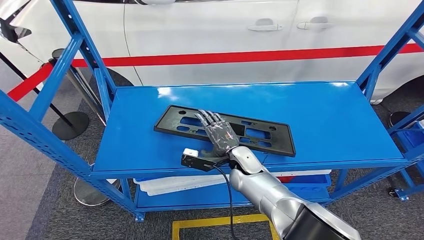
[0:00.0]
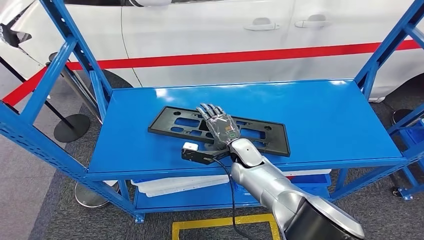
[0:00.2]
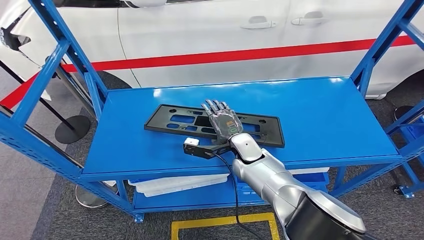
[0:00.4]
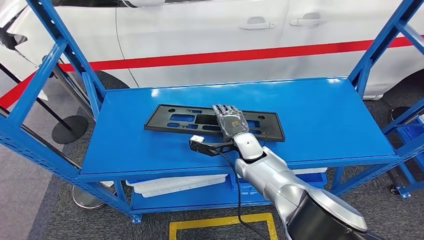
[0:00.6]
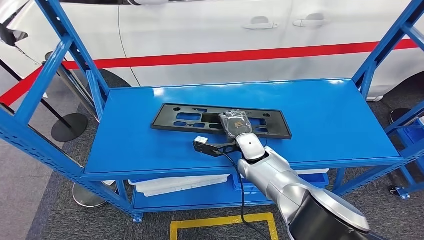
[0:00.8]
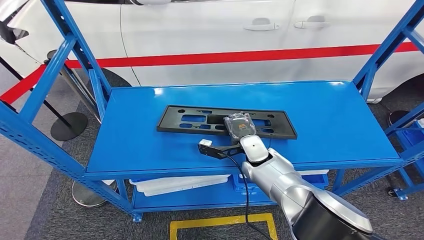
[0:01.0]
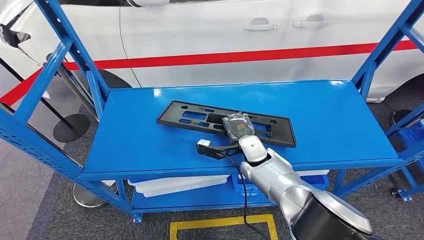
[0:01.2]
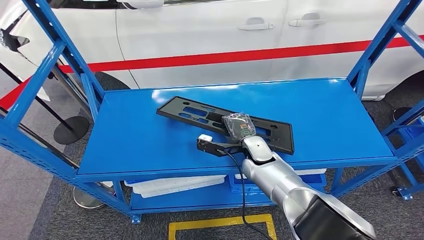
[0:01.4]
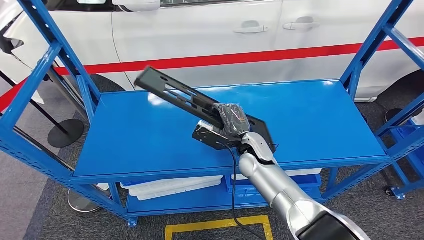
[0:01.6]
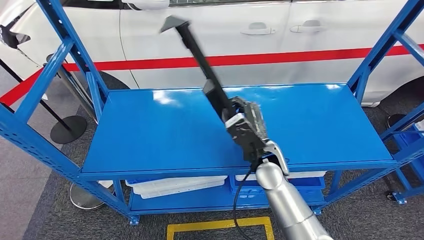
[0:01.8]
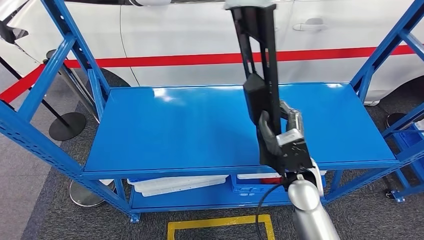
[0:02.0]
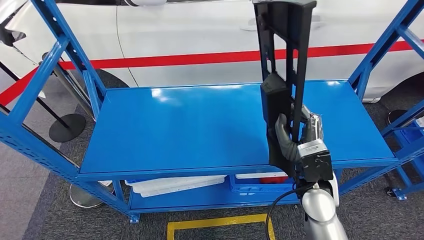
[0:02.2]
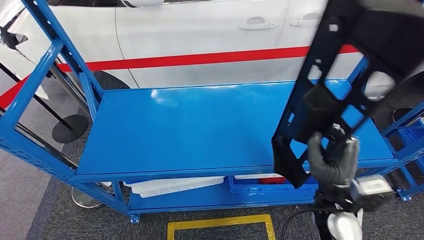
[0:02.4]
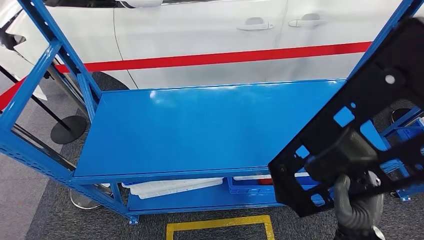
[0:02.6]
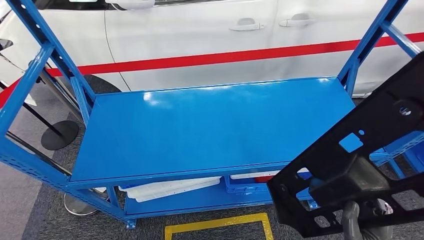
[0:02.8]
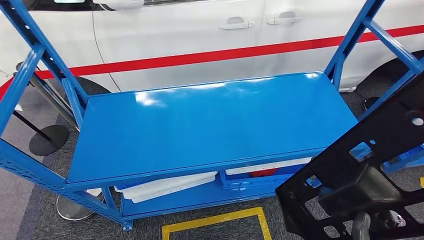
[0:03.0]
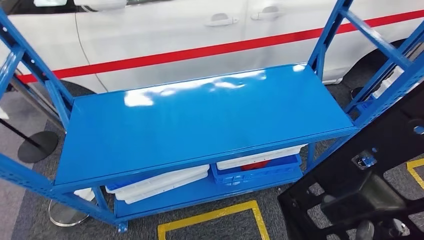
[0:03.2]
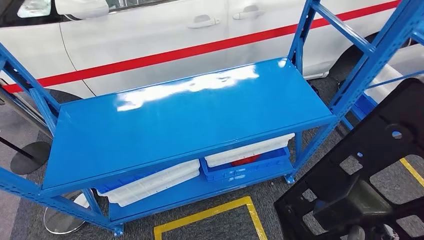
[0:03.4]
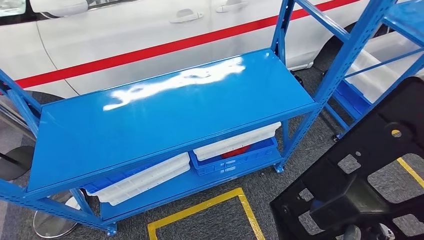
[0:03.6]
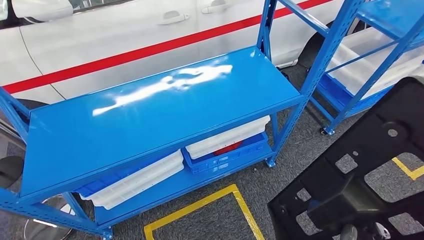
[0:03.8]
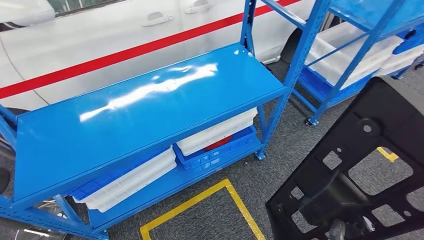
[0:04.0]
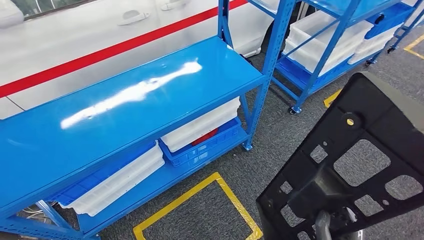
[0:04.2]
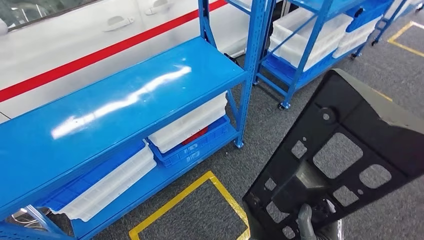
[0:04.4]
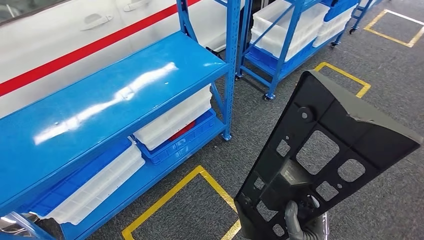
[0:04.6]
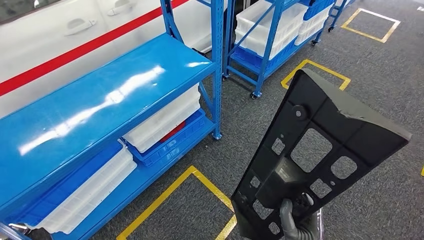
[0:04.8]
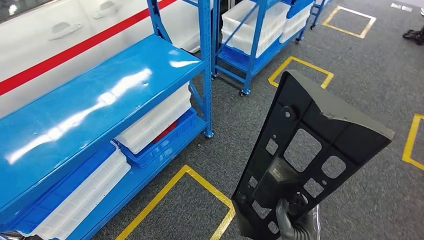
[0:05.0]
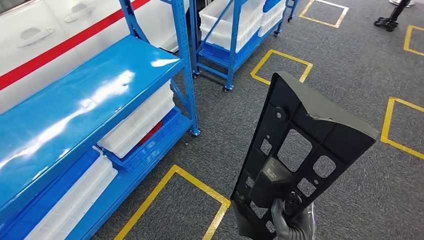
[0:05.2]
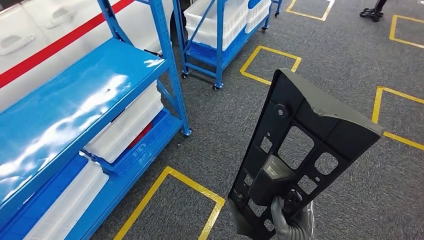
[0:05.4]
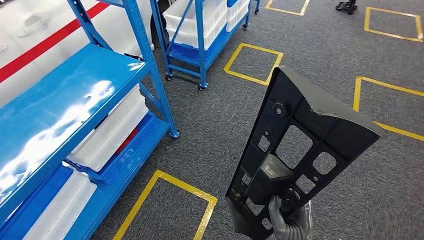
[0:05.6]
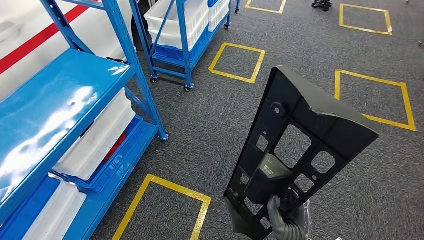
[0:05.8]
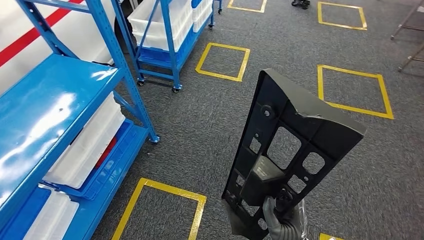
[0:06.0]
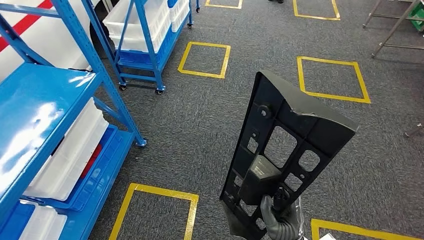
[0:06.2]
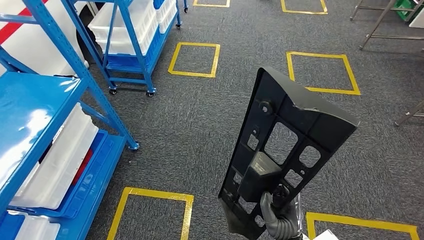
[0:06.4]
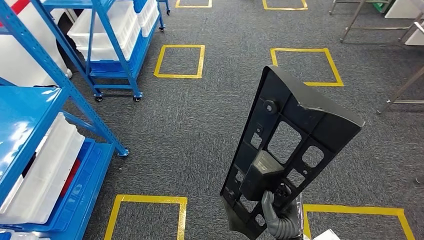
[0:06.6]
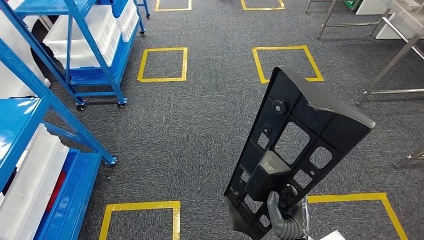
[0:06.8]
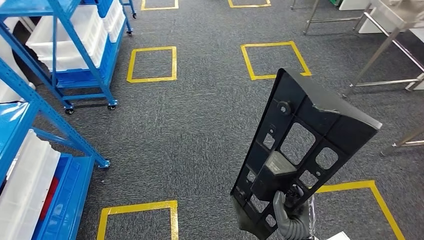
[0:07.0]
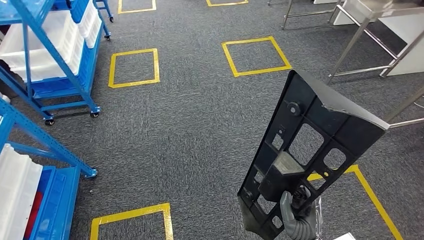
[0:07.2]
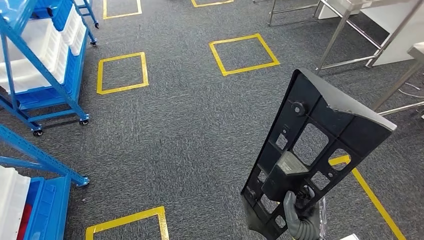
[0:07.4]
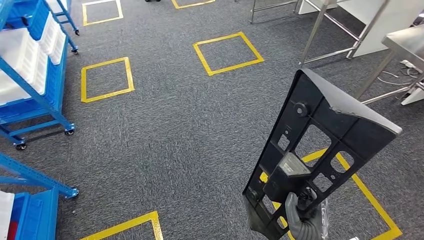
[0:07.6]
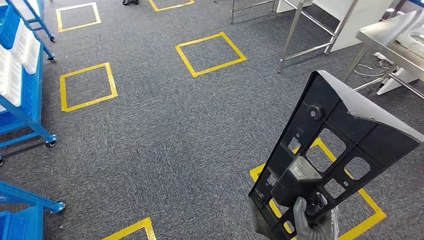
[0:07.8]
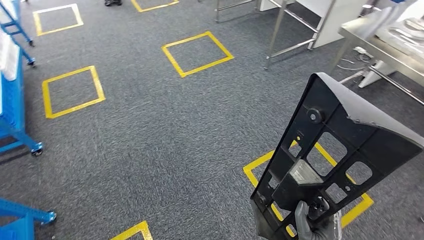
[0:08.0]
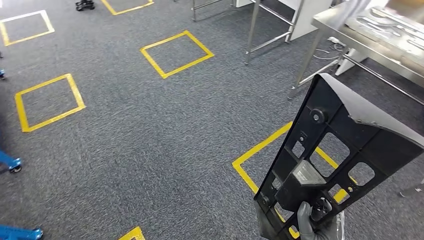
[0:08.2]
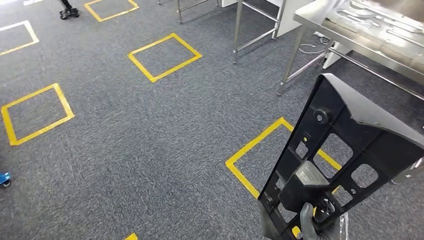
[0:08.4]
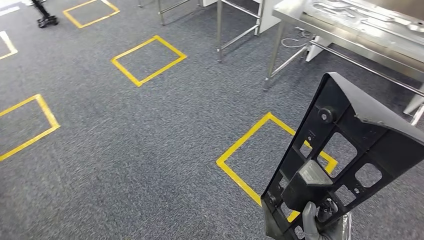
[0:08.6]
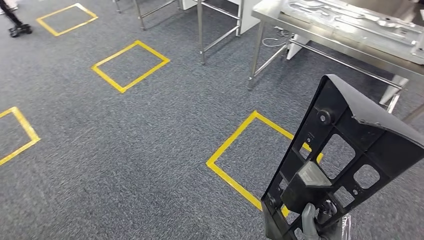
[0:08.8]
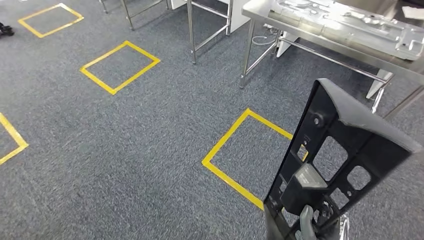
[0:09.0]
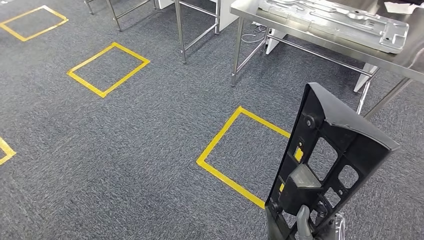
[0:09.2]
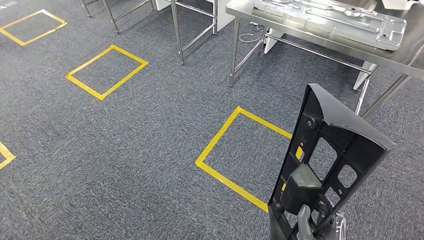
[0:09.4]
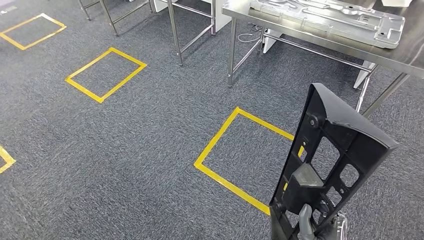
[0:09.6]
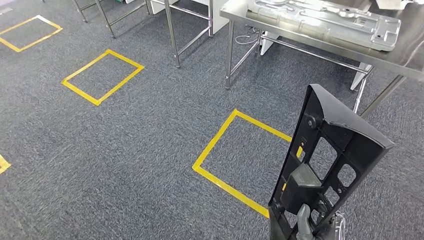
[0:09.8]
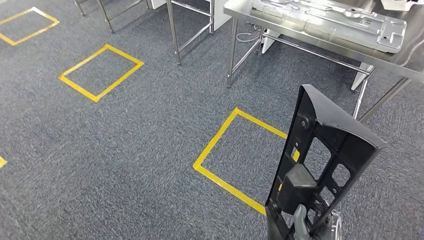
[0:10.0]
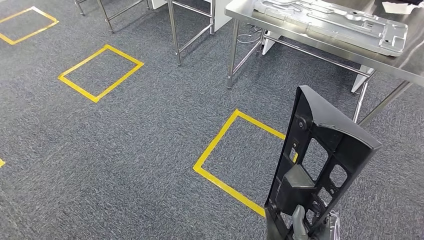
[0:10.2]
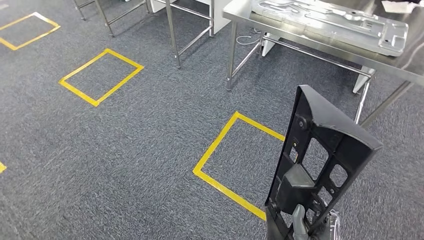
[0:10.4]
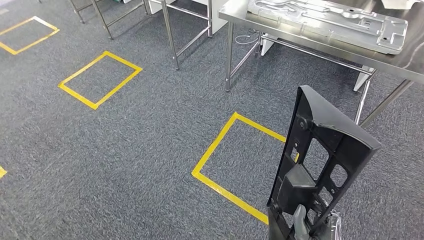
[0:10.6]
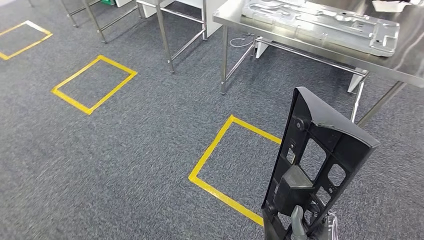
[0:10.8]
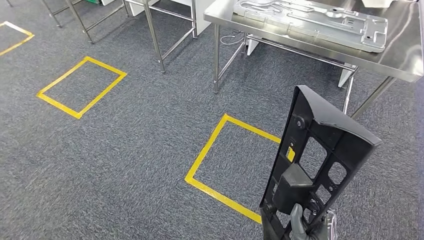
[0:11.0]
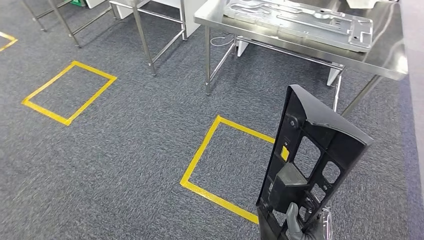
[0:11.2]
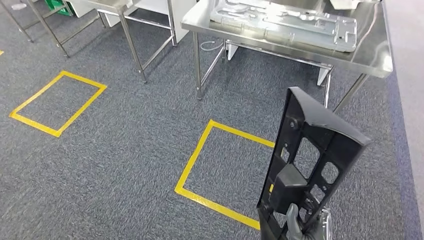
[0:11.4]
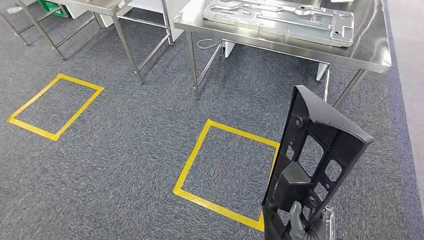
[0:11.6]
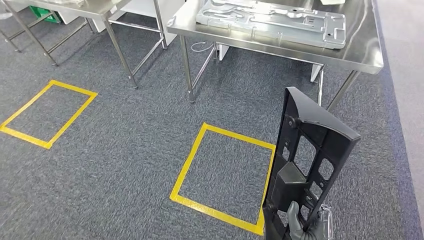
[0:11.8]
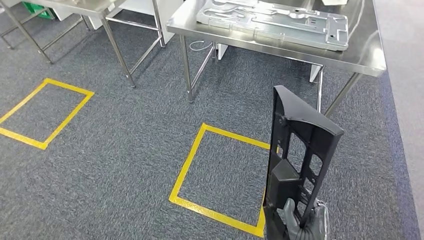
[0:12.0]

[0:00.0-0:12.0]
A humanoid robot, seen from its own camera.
Step, 0:00.0 to 0:02.8: Pick up the large material from the shelf.

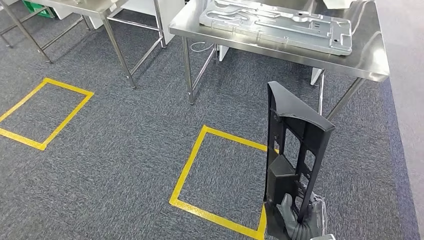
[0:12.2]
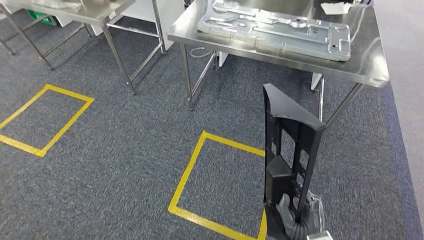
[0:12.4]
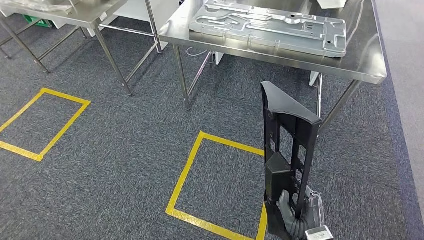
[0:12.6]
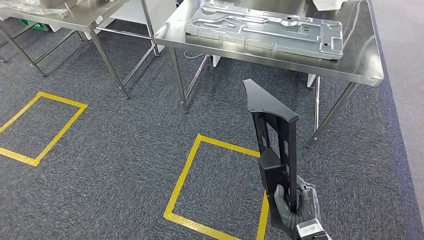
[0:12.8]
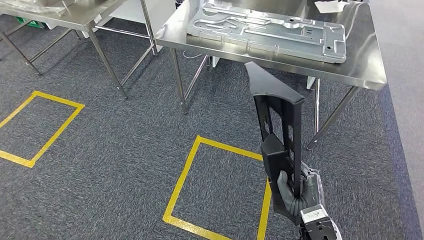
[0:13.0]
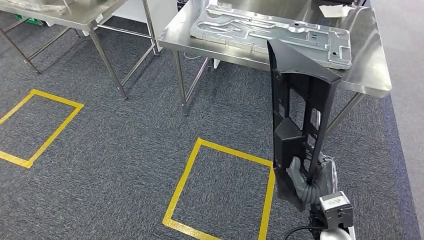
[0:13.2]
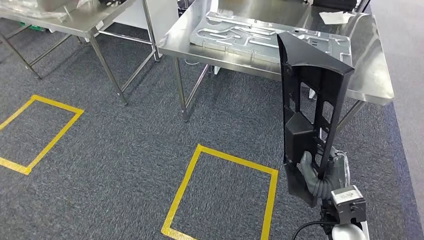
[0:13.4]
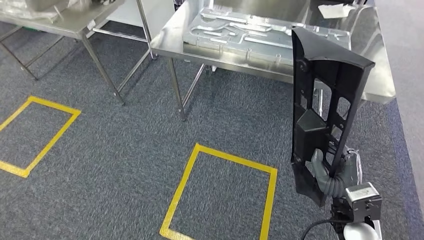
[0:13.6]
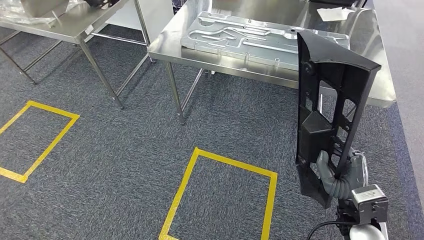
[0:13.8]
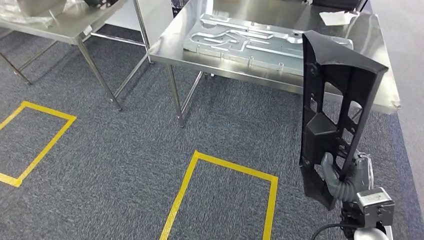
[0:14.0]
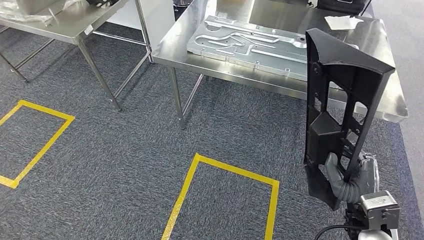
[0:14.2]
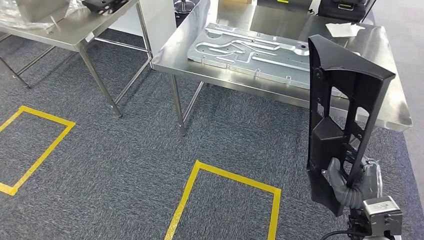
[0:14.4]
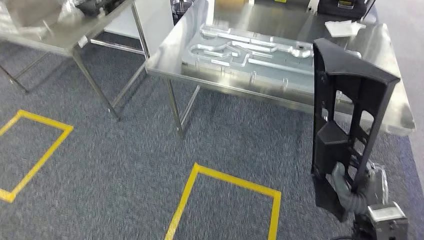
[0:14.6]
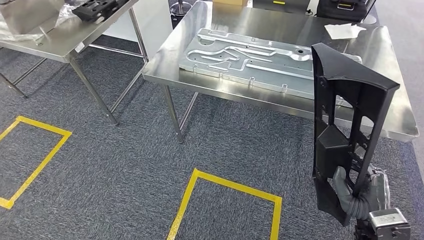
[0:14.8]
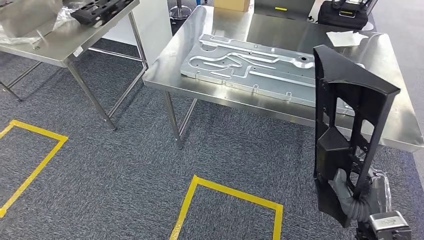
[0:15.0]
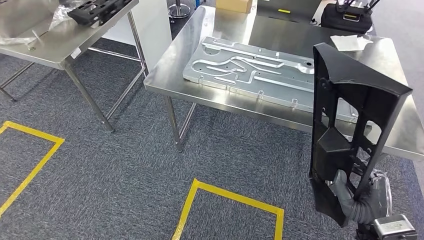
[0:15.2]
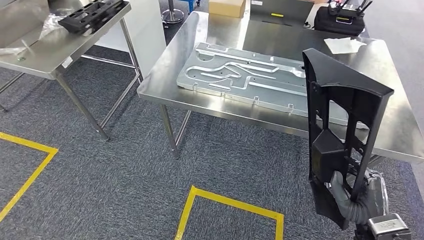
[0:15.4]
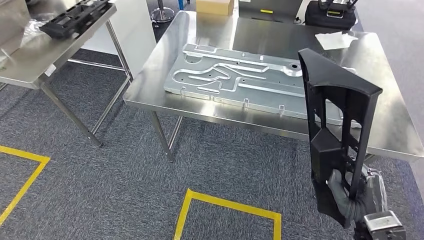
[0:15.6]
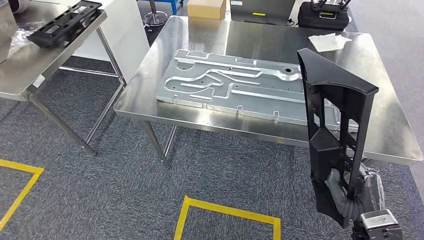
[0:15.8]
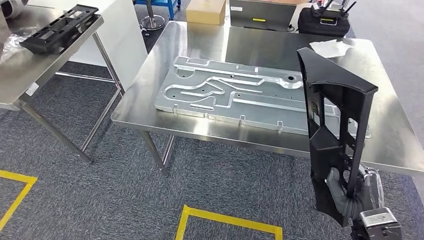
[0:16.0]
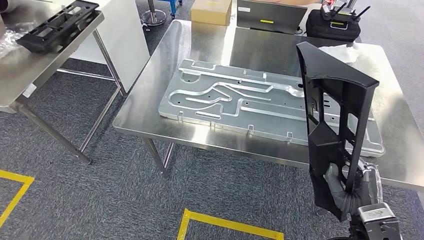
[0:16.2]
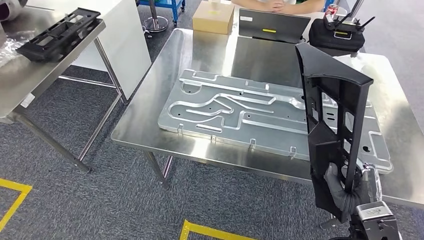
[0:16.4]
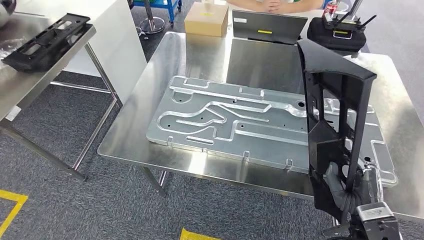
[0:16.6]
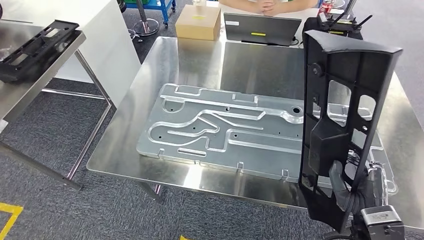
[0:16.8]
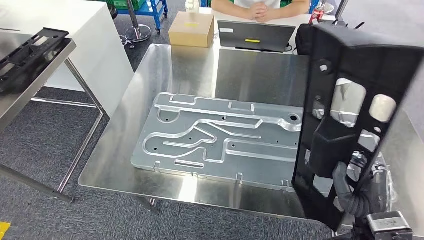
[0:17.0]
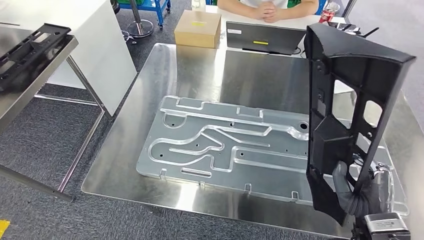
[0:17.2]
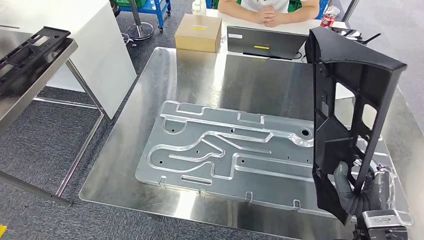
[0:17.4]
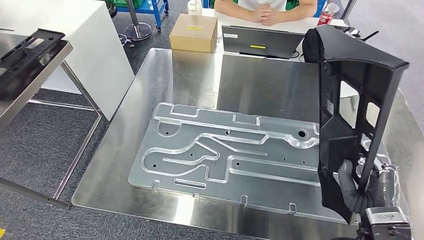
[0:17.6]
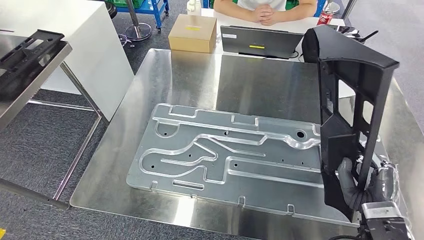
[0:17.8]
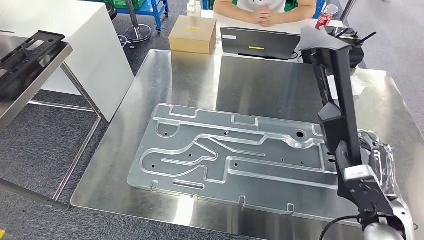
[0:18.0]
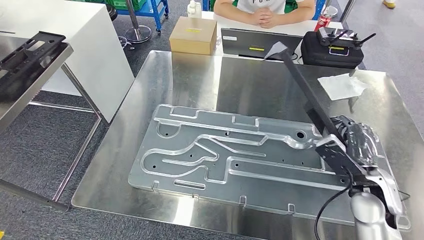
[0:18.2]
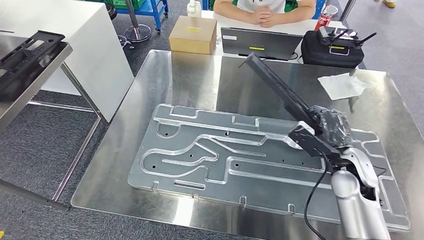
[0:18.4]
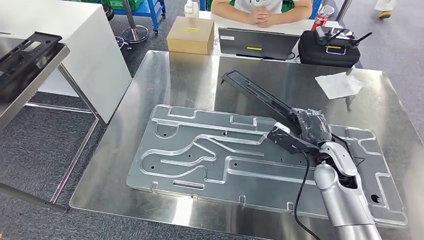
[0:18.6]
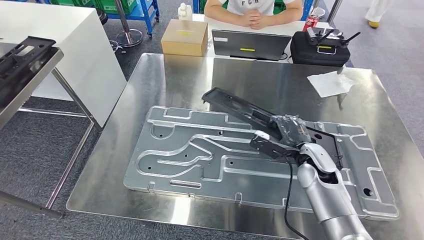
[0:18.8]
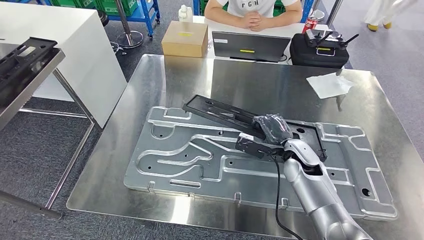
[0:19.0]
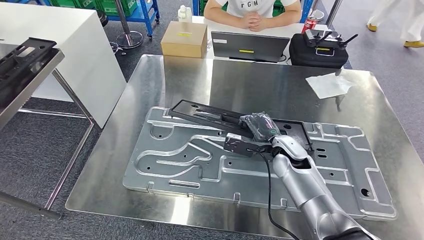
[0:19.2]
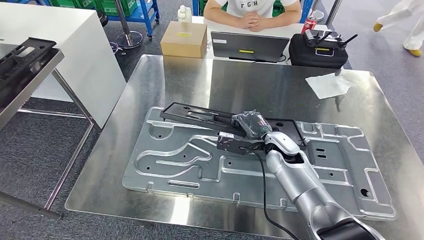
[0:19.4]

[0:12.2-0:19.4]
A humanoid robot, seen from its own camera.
Step, 0:12.2 to 0:16.4: Move the large material to the workbench.
